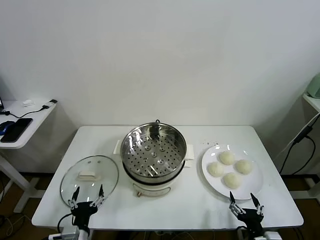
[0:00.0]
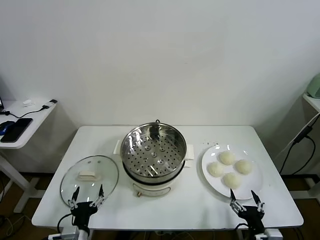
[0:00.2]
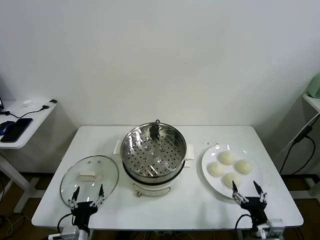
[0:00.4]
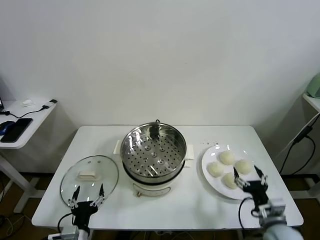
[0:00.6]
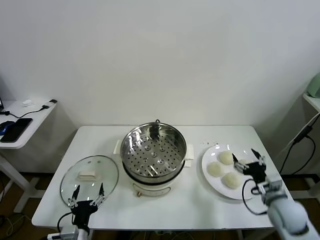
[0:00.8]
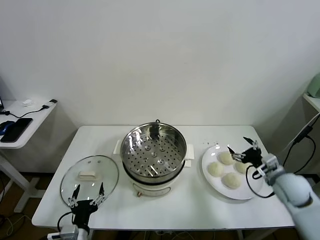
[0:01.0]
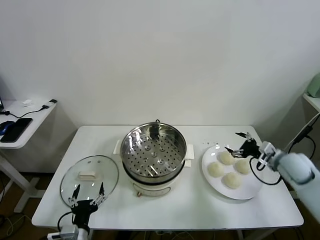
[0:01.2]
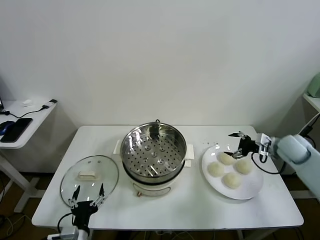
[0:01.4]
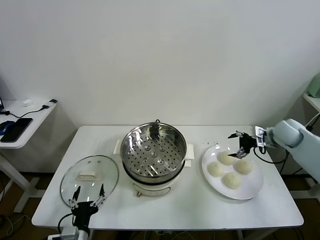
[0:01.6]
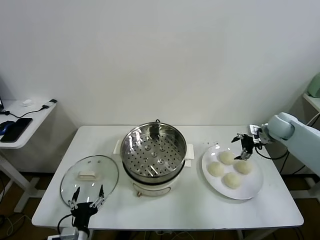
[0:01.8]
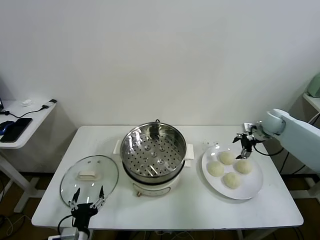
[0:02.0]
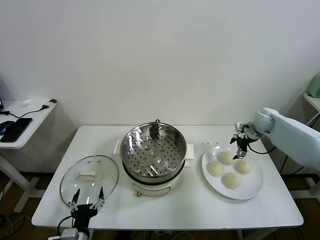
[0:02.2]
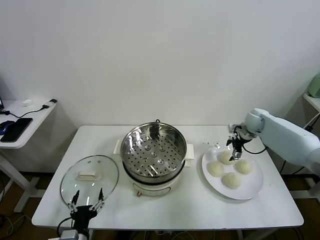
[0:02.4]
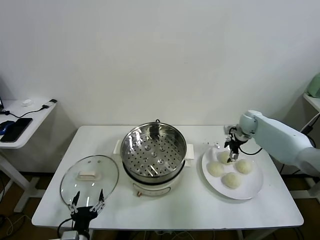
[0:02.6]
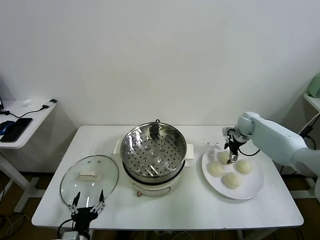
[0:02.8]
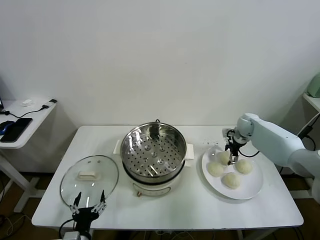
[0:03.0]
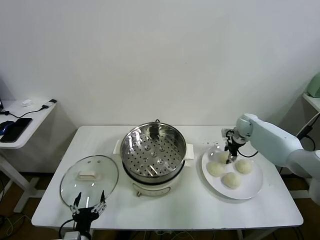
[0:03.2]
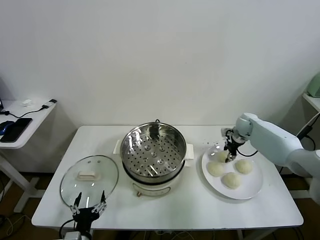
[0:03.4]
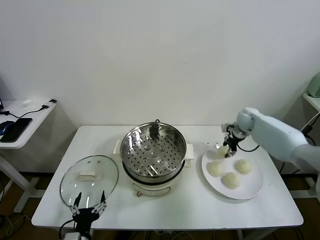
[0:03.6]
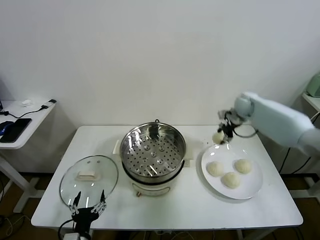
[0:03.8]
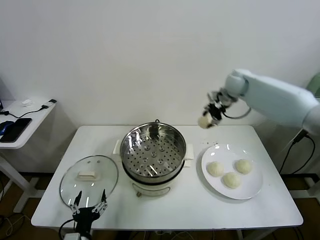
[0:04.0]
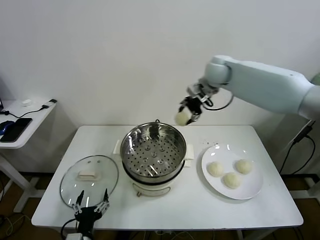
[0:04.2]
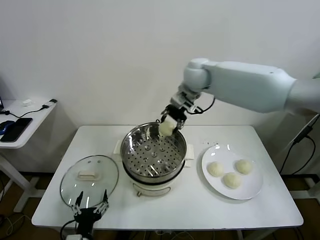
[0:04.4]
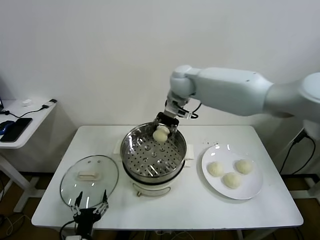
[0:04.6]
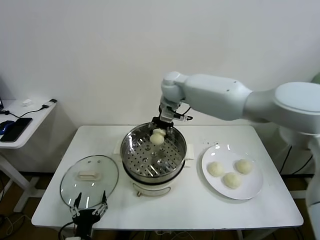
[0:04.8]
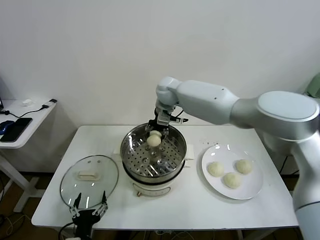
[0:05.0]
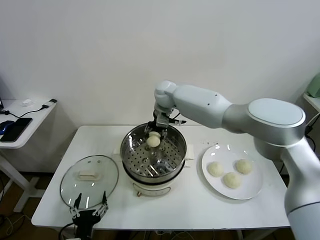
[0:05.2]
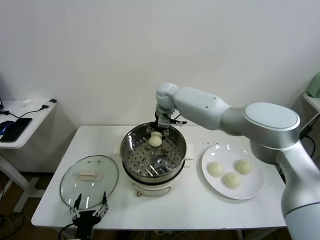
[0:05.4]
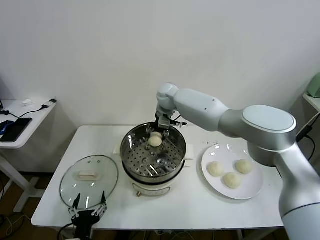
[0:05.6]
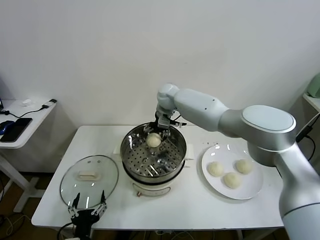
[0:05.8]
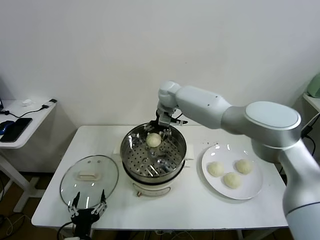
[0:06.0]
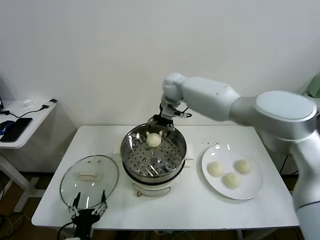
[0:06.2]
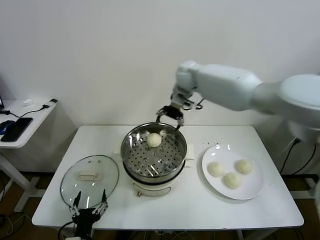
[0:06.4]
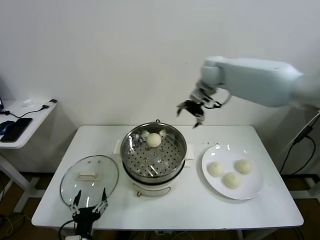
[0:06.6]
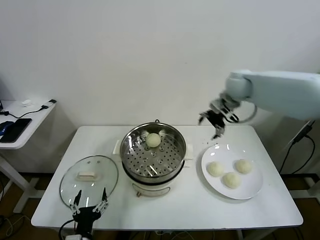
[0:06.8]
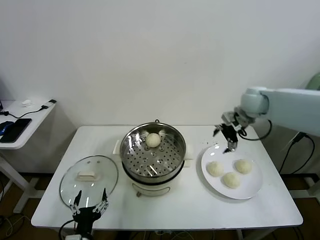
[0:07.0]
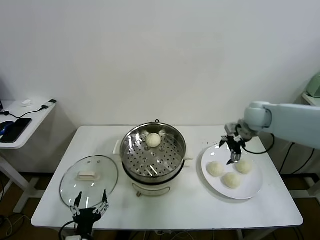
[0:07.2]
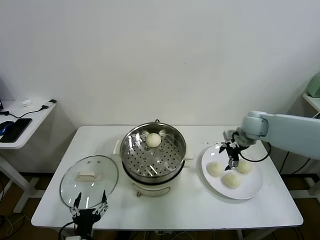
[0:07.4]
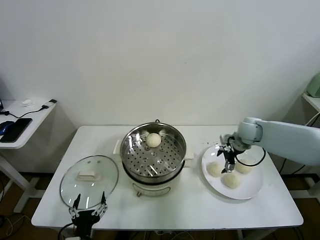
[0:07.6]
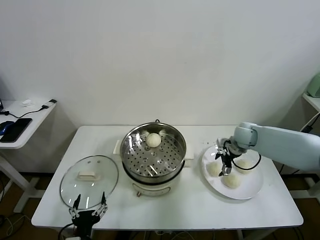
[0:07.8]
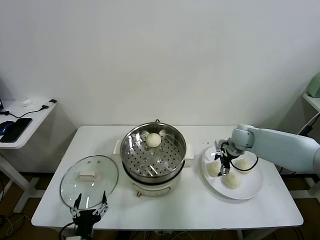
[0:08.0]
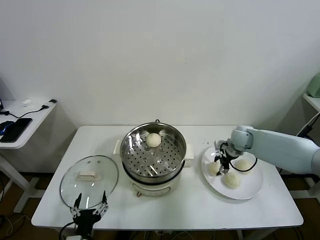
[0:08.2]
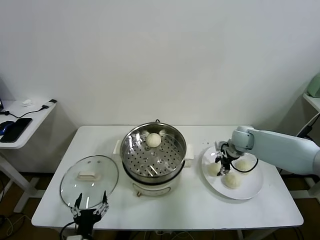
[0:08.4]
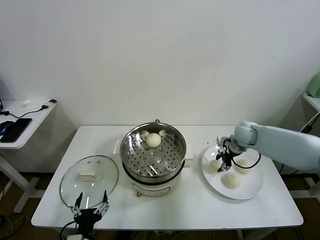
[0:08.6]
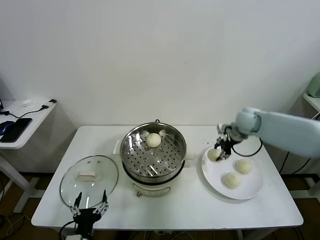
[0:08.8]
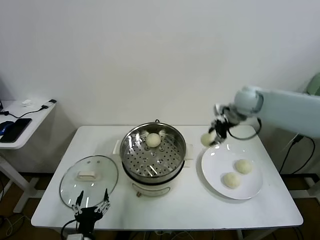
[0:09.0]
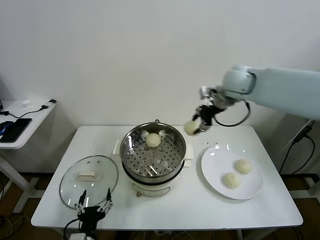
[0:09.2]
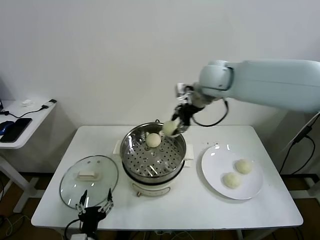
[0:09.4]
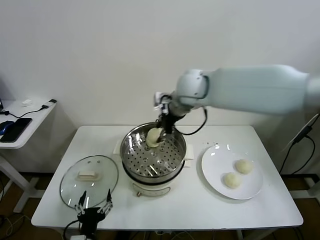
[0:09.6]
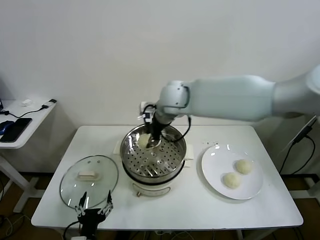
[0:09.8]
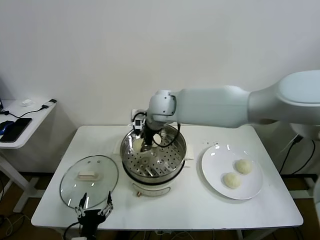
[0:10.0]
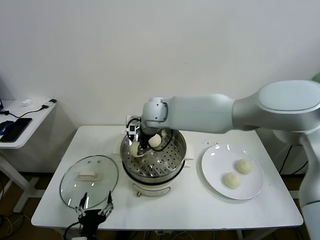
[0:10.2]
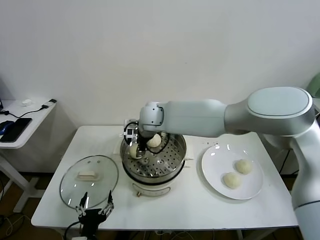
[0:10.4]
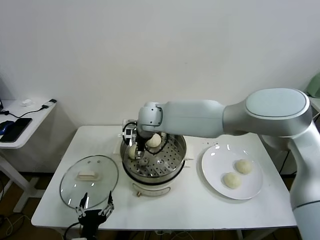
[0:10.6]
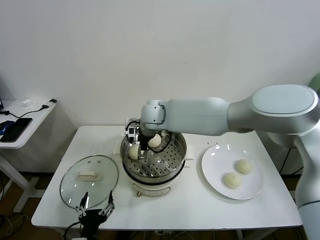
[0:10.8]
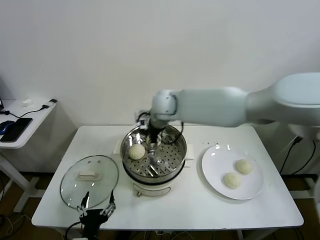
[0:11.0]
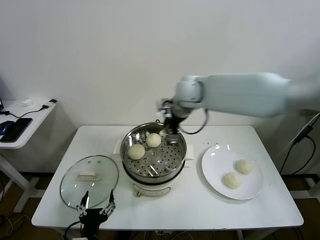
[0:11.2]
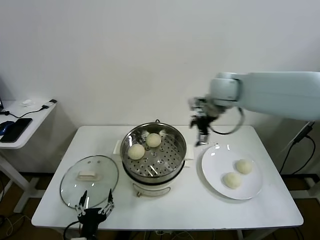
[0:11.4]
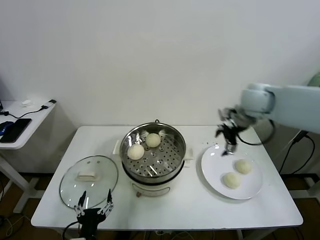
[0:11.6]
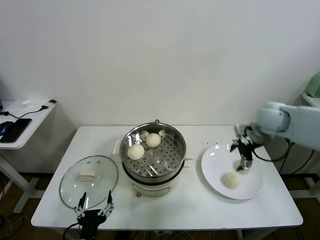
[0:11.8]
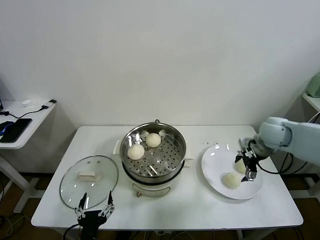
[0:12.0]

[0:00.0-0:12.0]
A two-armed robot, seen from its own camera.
Task of the whole recording: take steamed baozi put them in steamer.
Step, 0:00.0 to 0:03.0: Grasp the baozi in the plate with right gripper.
Step, 0:03.2 to 0:06.0: Place the baozi on the steamer with right gripper.
Step, 0:06.2 to 0:08.4: Grasp the baozi in the plate with right gripper.
Step, 0:08.6 to 0:10.8: Place the baozi on the steamer with right gripper.
0:01.6 to 0:03.0: The right gripper shifts about 15 cm forward, to the left and downward.
0:03.0 to 0:04.4: The right gripper shifts some 35 cm to the left and upward, and closes.
0:04.4 to 0:06.0: The right gripper heads downward, forward and to the left, covering roughly 10 cm, and opens.
0:06.0 to 0:07.6: The right gripper goes roughly 30 cm to the right and downward.
0:07.6 to 0:09.0: The right gripper heads upward, covering about 15 cm, and closes its fingers.
0:09.0 to 0:10.4: The right gripper heads to the left, covering roughly 30 cm, and opens up.
0:10.4 to 0:12.0: The right gripper shifts some 40 cm to the right, and opens up.

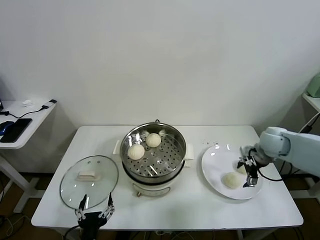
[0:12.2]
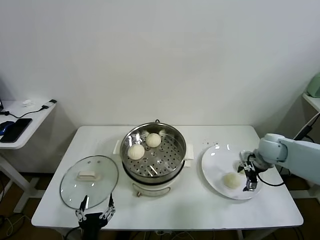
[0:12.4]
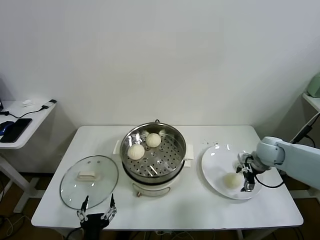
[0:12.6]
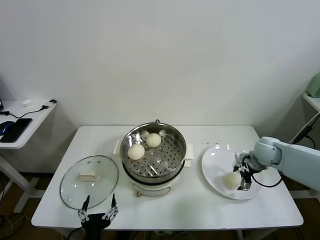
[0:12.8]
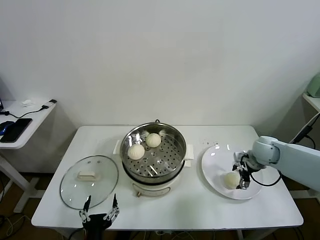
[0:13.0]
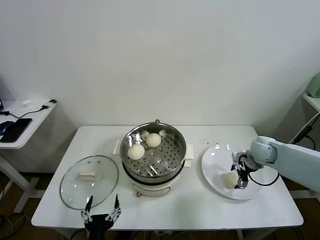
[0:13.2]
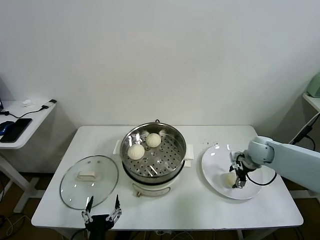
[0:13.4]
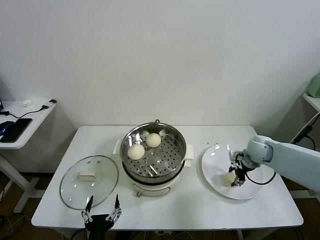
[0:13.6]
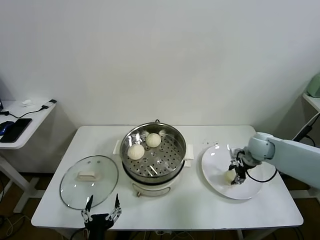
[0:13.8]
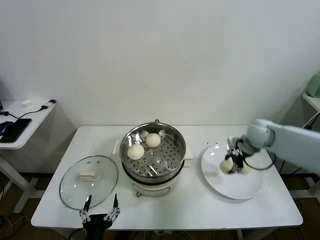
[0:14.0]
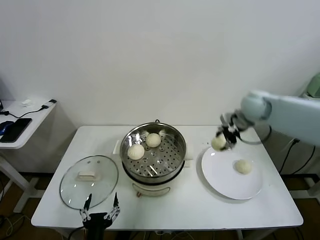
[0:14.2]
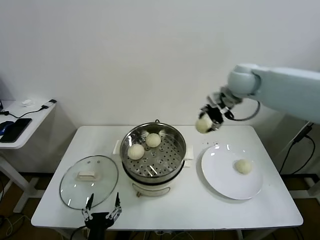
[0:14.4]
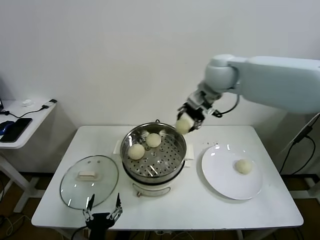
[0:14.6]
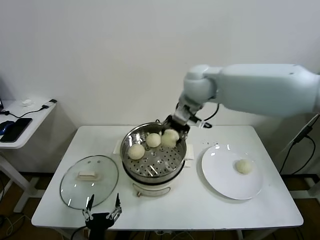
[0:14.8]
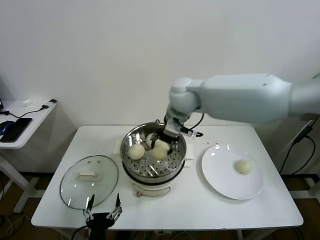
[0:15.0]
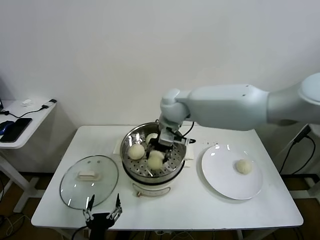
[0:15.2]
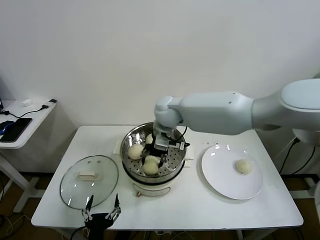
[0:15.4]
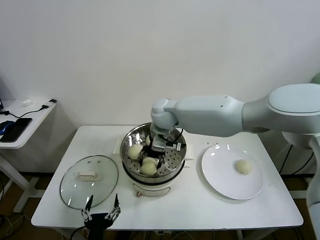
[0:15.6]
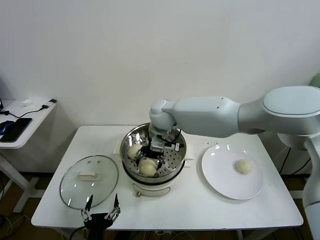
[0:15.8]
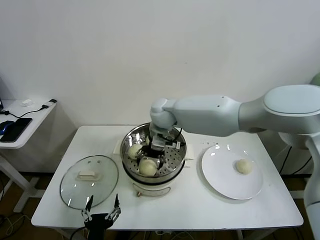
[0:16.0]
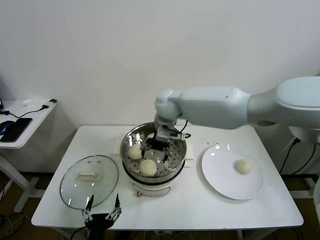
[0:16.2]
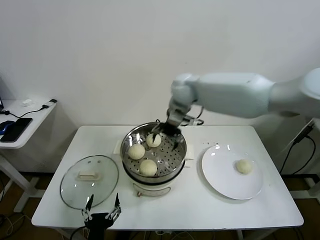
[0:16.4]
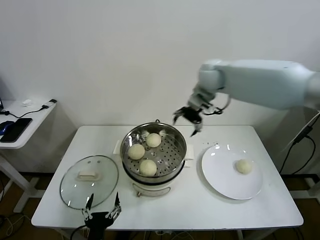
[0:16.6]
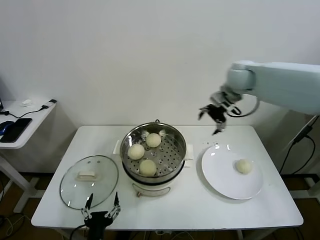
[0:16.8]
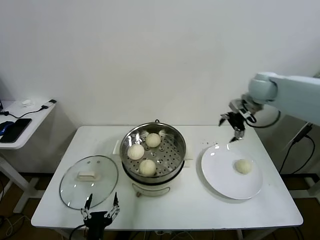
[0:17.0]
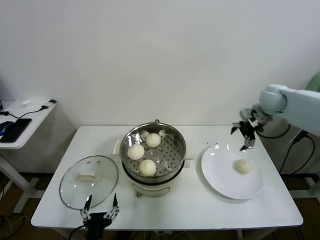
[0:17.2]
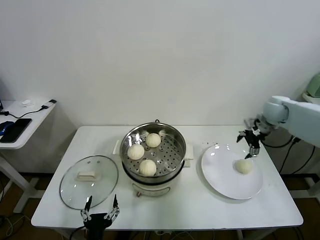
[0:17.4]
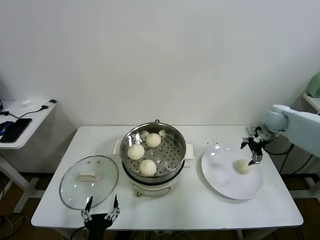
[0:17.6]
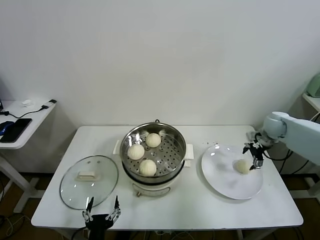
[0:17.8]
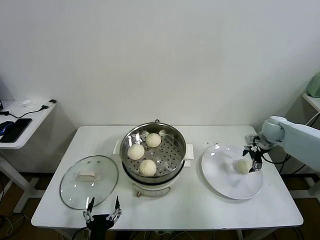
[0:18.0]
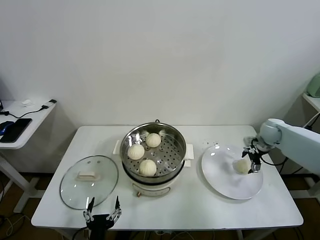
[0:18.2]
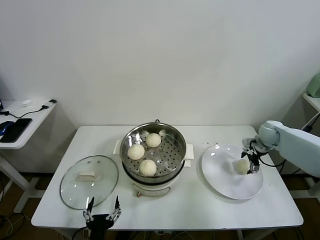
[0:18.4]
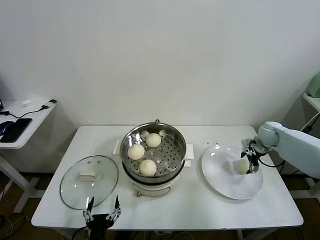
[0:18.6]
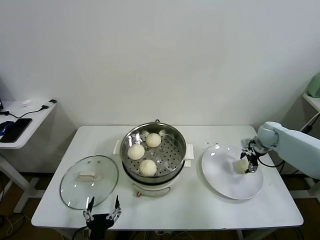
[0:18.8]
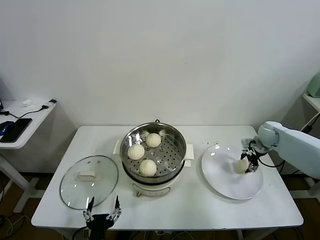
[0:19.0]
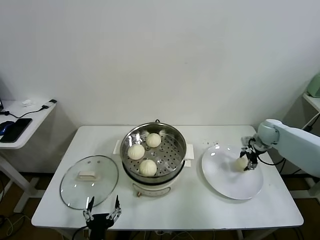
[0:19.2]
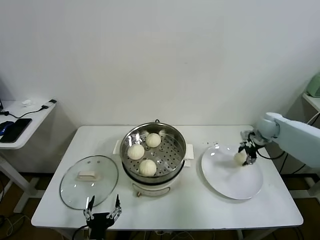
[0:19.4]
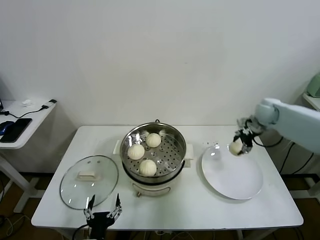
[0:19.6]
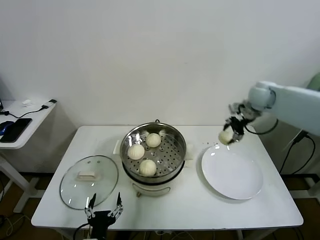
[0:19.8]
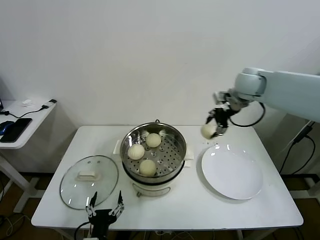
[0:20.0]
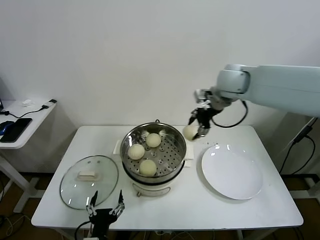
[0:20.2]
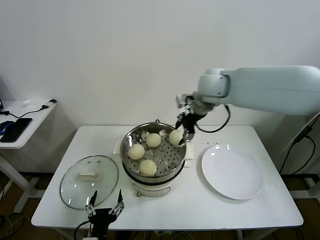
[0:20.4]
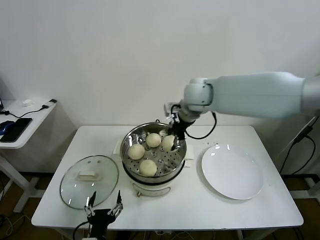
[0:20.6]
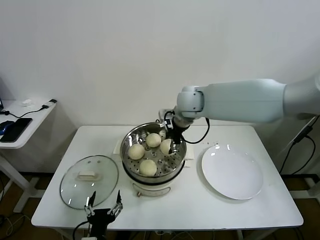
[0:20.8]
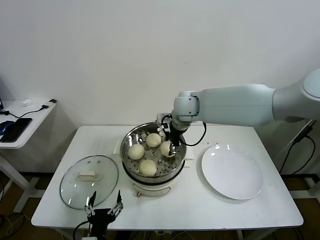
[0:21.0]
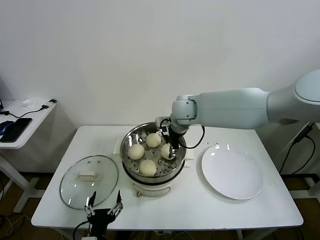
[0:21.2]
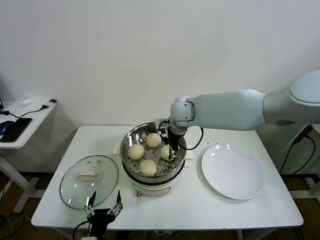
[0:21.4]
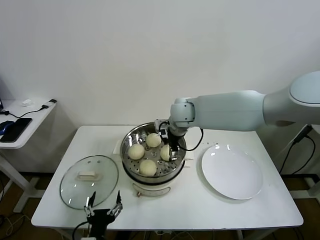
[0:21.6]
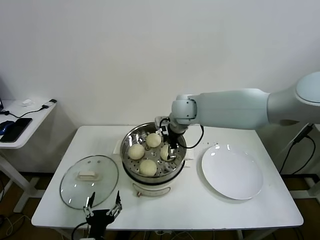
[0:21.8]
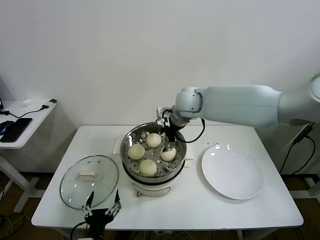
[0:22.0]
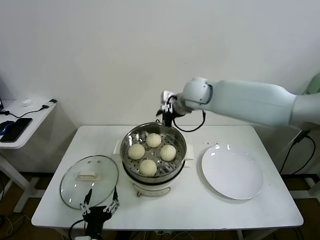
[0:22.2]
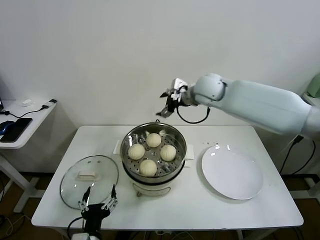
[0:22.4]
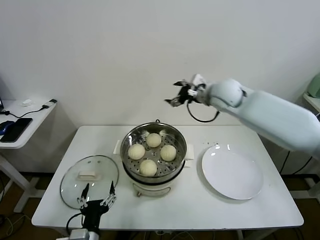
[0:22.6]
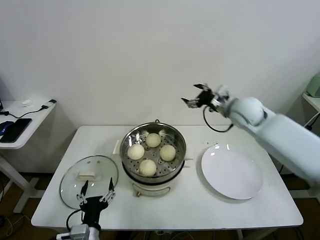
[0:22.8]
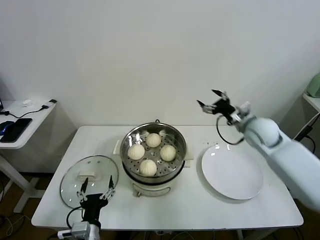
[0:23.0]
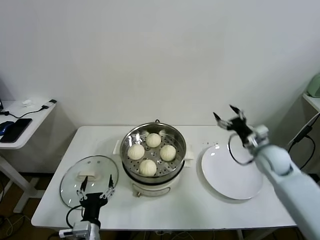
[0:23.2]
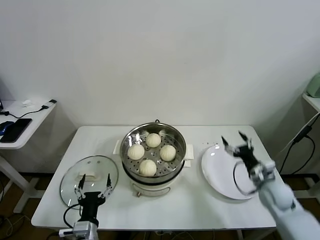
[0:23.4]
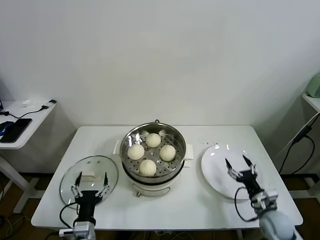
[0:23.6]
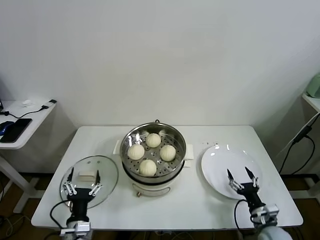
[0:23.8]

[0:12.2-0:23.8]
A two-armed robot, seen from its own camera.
Task of the whole recording: take steamed baozi put them in steamer.
Step, 0:12.2 to 0:13.4: Grasp the baozi in the plate with right gripper.
Step, 0:13.6 to 0:16.0: Place the baozi on the steamer with right gripper.
Step, 0:16.2 to 0:19.0: Grasp the baozi in the plate with right gripper.
Step, 0:19.2 to 0:21.6: Place the baozi on the steamer with right gripper.
0:12.2 to 0:13.6: The right gripper goes some 5 cm downward, and closes up.
0:13.6 to 0:15.0: The right gripper shifts approximately 35 cm to the left and upward.
0:15.0 to 0:16.6: The right gripper heads to the right and forward, covering approximately 15 cm, and opens.
0:16.6 to 0:18.0: The right gripper goes approximately 35 cm to the right and downward.
0:18.0 to 0:19.4: The right gripper closes up.
0:19.4 to 0:21.0: The right gripper heads to the left, covering about 35 cm.
0:21.0 to 0:22.4: The right gripper travels to the right by some 5 cm, and opens its fingers.
0:22.4 to 0:23.8: The right gripper moves downward, backward and to the right, about 50 cm. Meanwhile the left gripper moves approximately 10 cm.
